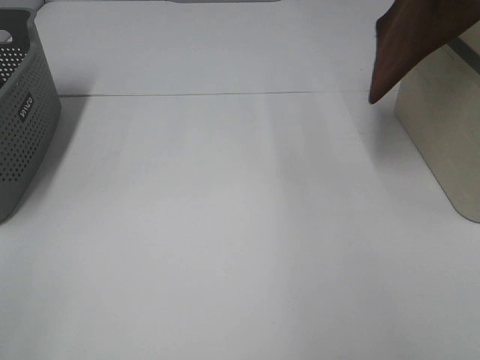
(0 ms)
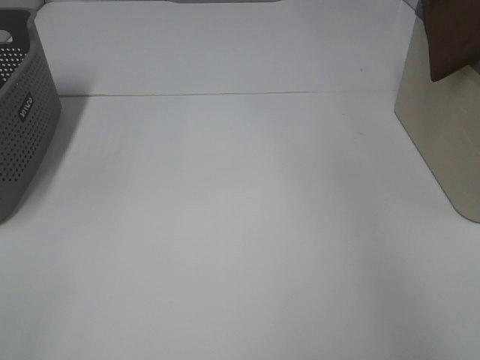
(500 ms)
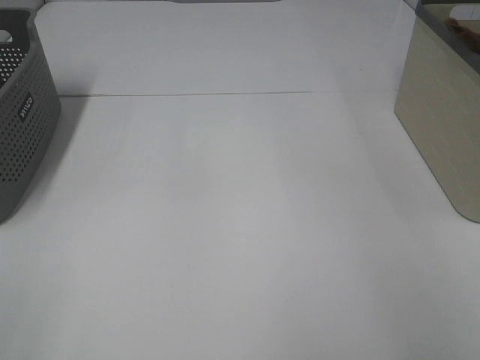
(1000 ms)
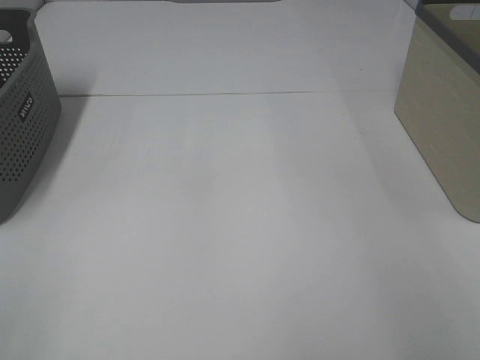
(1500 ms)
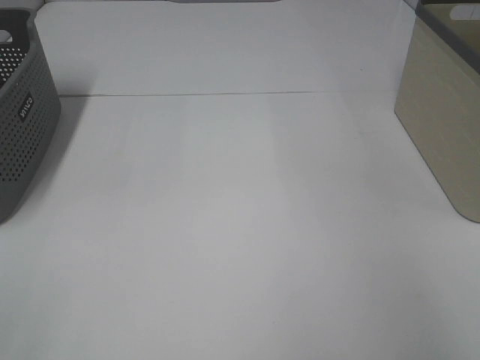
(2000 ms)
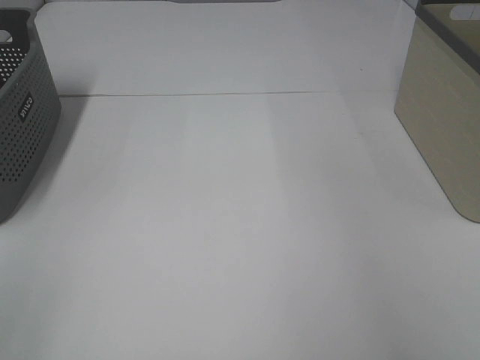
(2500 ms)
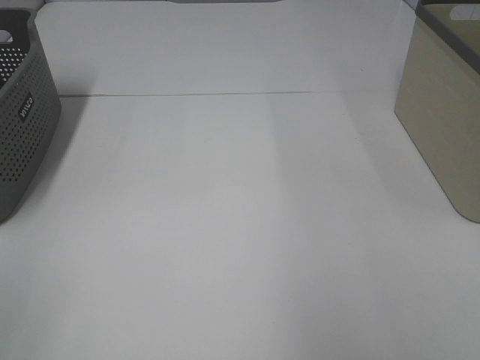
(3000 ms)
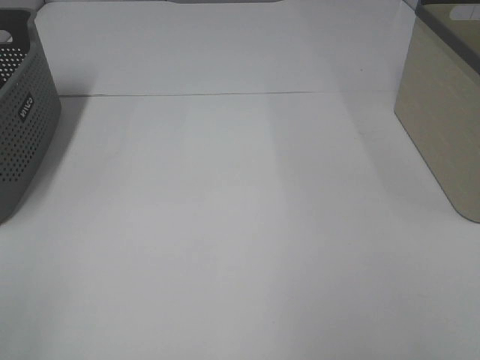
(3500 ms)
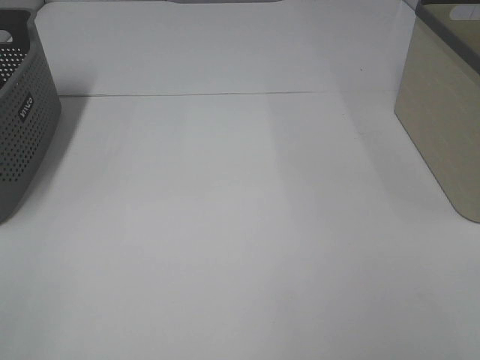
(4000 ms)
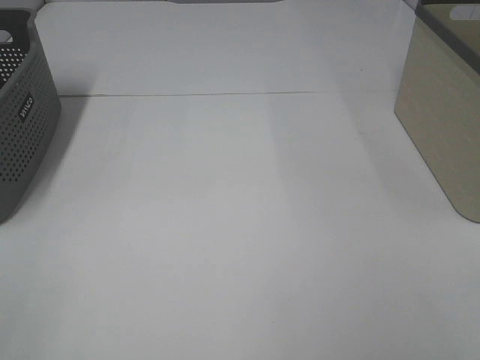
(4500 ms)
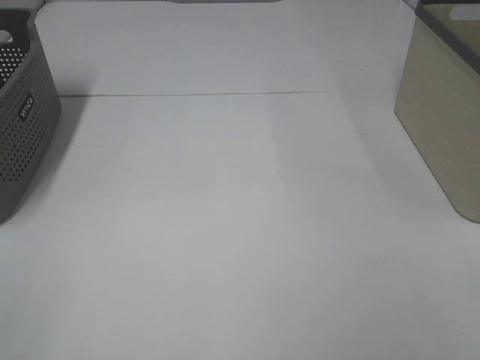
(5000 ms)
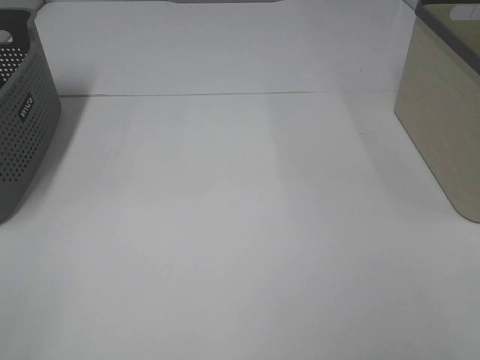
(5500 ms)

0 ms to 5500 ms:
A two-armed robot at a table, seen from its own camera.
Step, 0 ms to 1500 ms: Right hand: place the brown towel in right basket.
0 ms to 2000 ms: The right gripper is displaced to the right by roughly 15 cm, and opens.

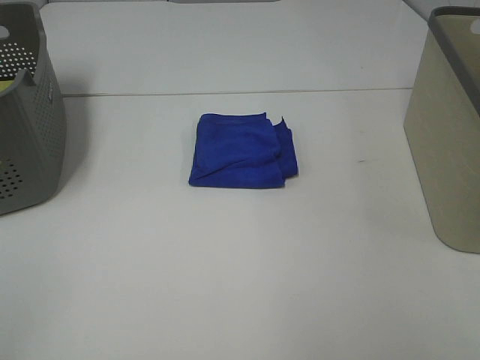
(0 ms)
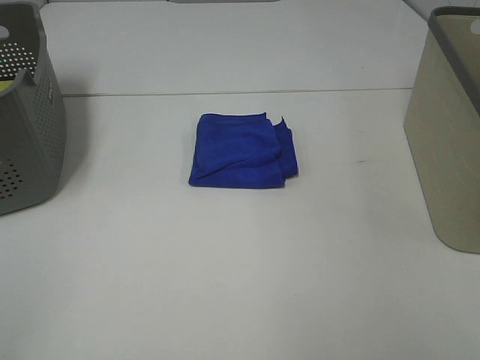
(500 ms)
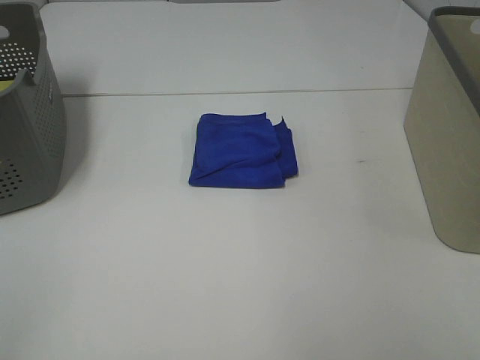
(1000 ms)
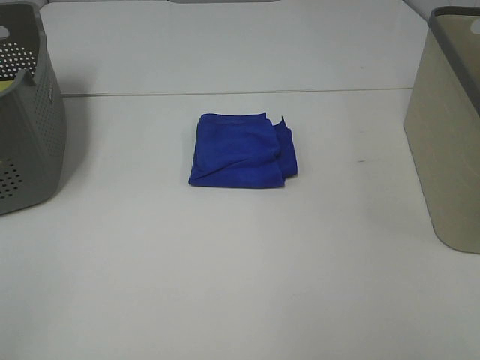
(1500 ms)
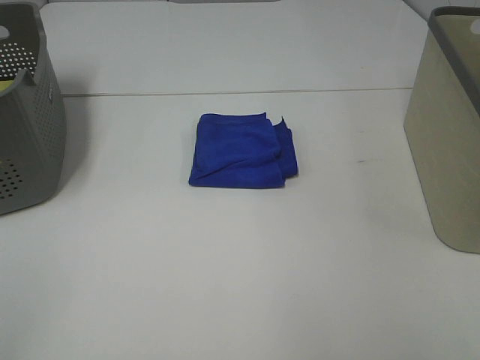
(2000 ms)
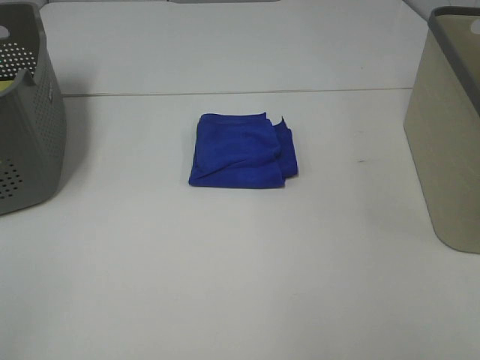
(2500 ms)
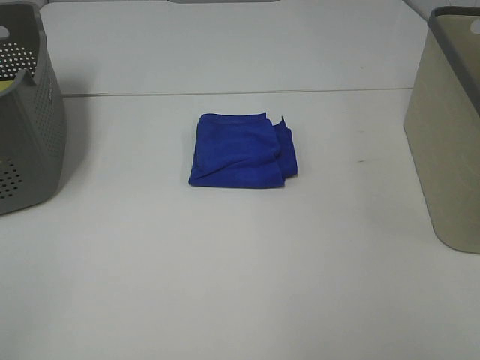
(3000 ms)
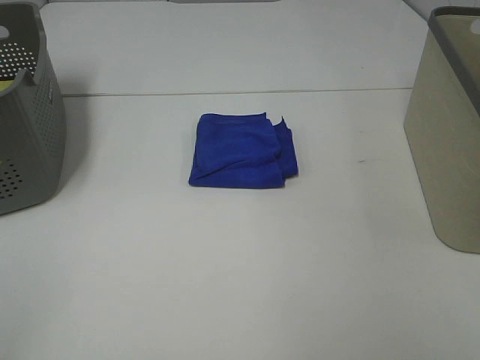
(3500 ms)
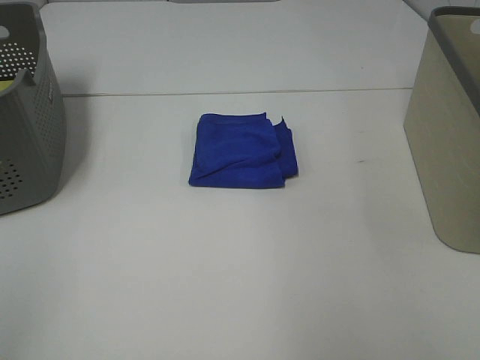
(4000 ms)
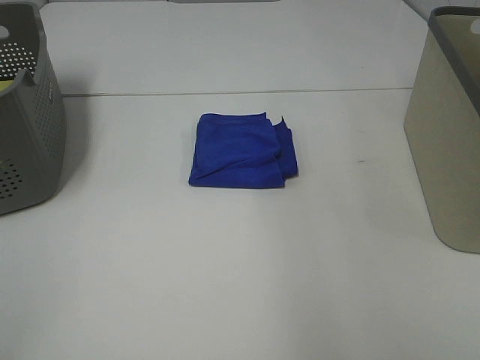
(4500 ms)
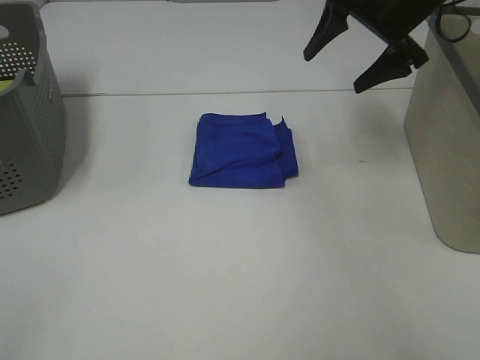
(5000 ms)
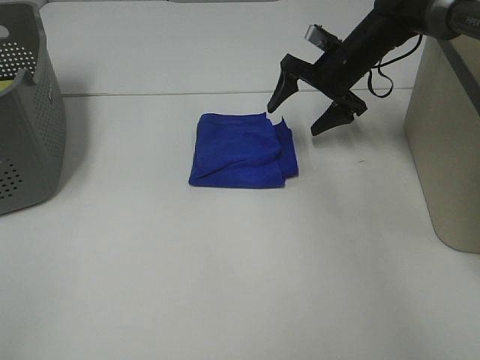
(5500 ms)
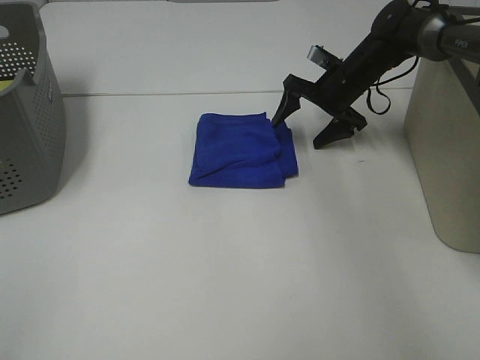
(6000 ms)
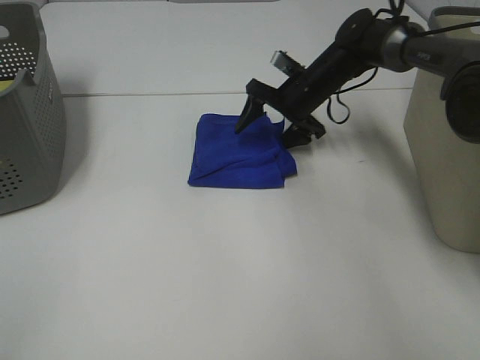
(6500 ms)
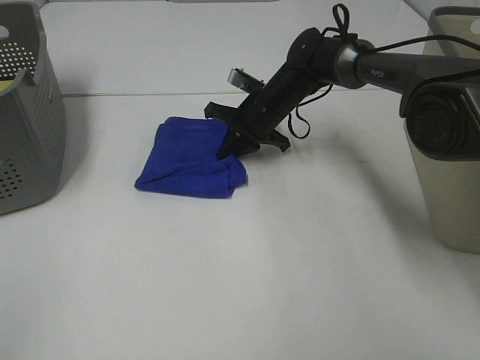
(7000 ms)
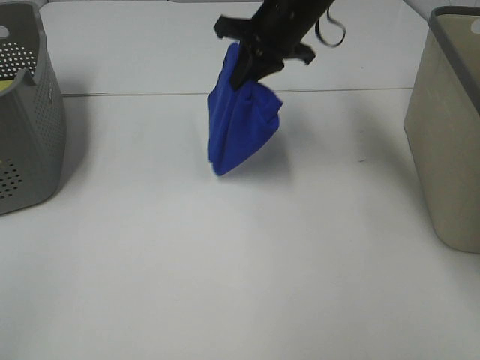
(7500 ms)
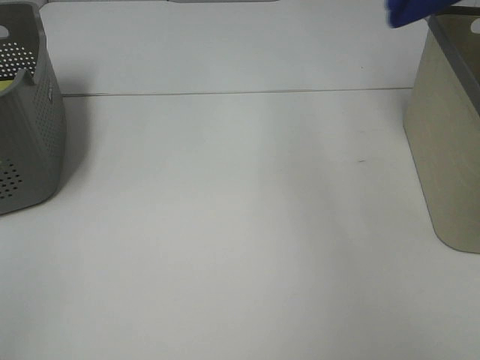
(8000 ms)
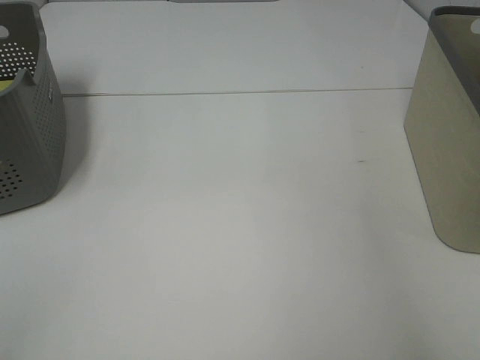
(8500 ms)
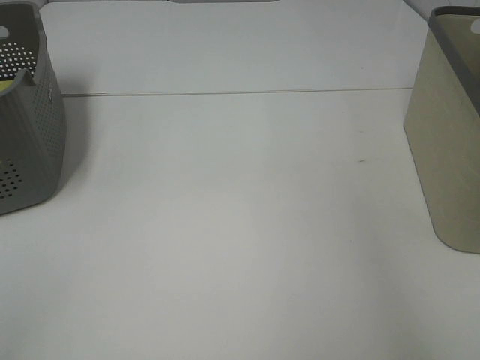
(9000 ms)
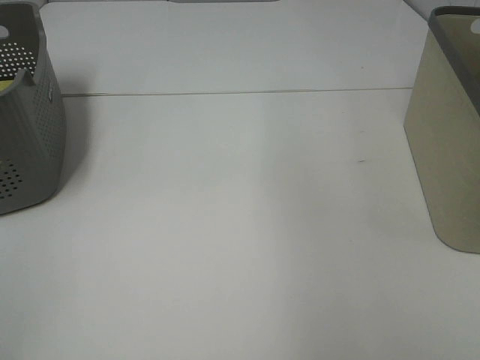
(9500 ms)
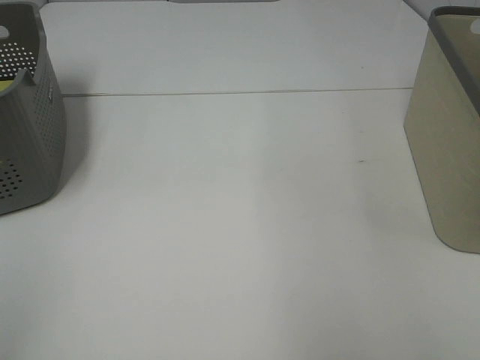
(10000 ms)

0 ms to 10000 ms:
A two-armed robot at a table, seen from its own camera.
Step, 0 ms to 6500 ms: Right hand: grab the folded blue towel.
Step, 7000 ms to 8500 ms: Right hand: place the blue towel in right basket.
0 ms to 2000 ms: The two grippers keep their place.
4000 ms to 6000 ms: The right gripper goes approximately 50 cm forward and downward.
6000 ms to 8000 ms: The right gripper heads upward, covering roughly 35 cm, and closes its fingers.
8000 ms to 10000 ms: The right gripper is displaced backward by approximately 30 cm, and opens.

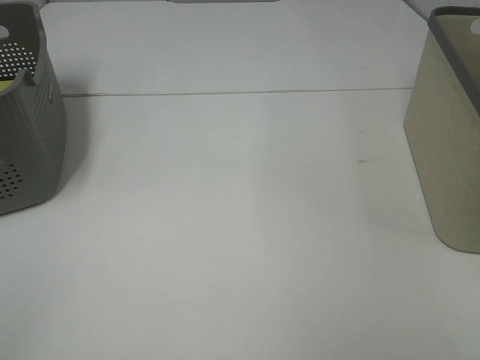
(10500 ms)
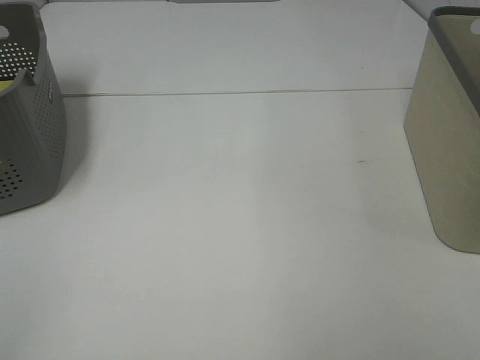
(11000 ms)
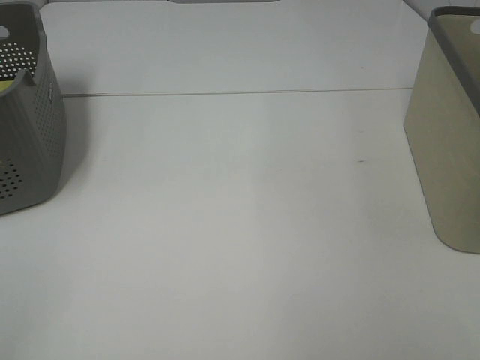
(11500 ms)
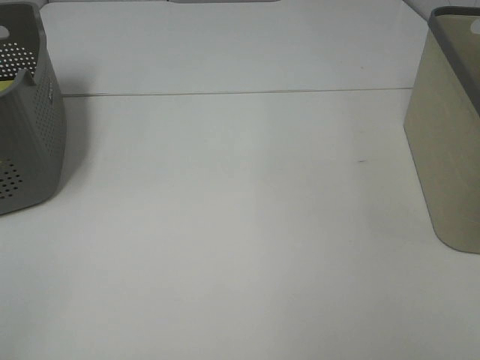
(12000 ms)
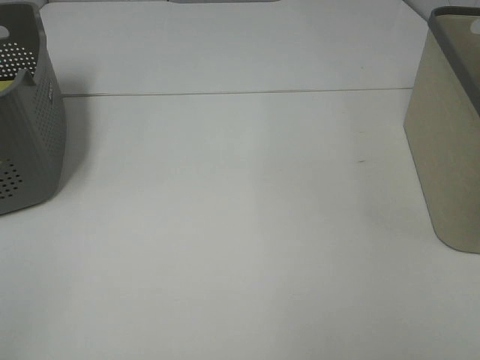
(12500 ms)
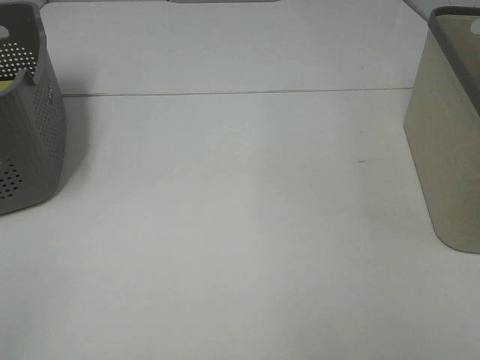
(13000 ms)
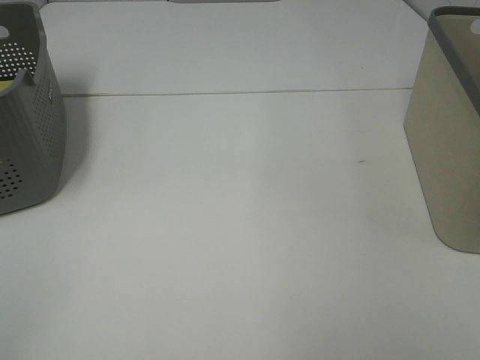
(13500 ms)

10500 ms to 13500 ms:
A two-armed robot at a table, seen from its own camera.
12000 ms to 13500 ms: Both grippers stay about where they are.

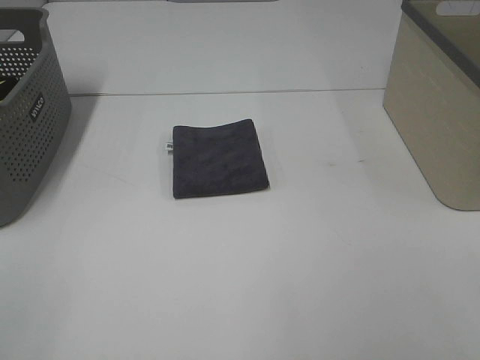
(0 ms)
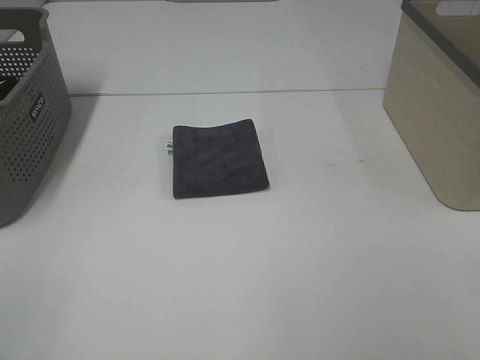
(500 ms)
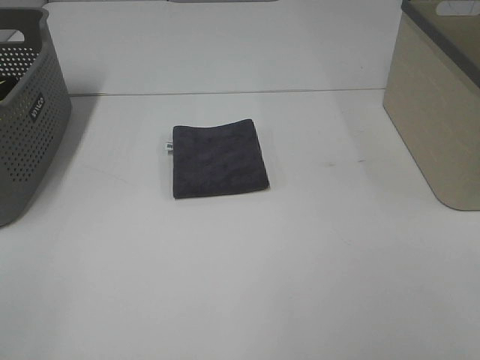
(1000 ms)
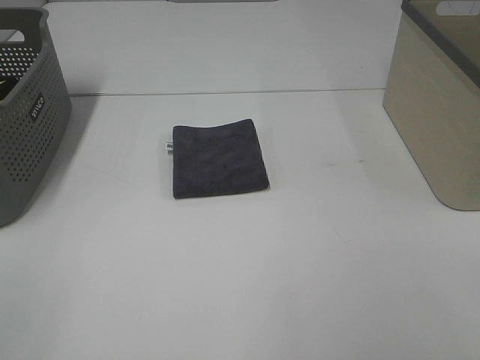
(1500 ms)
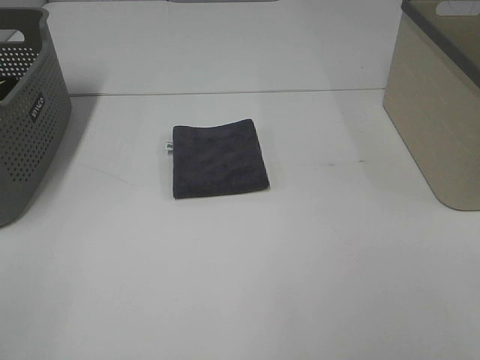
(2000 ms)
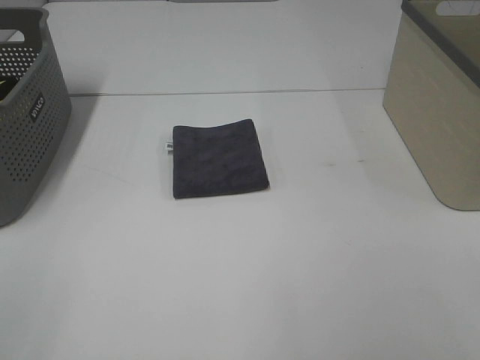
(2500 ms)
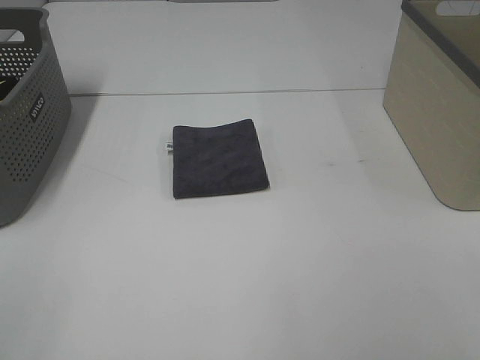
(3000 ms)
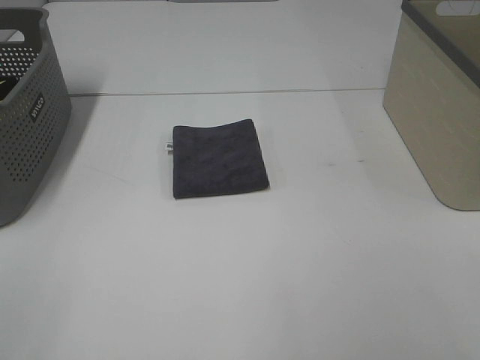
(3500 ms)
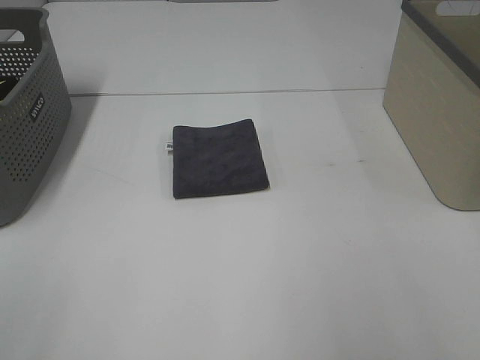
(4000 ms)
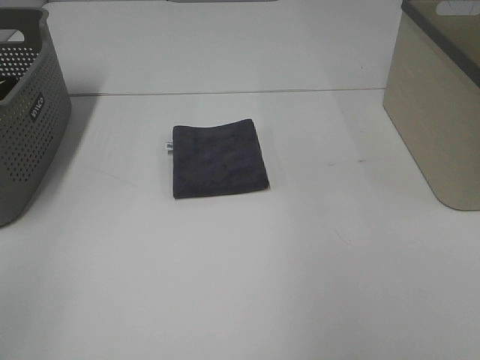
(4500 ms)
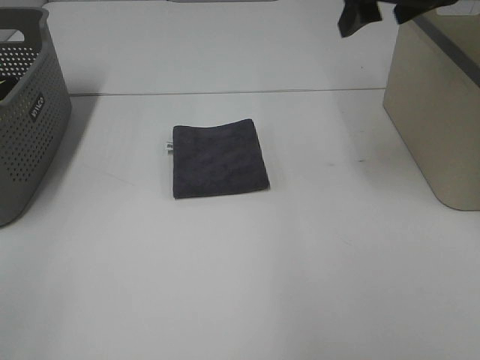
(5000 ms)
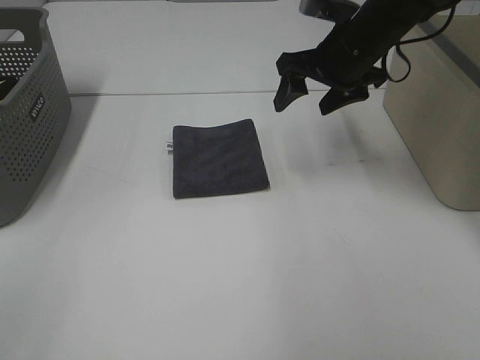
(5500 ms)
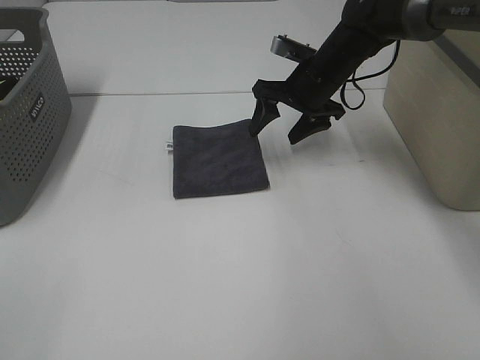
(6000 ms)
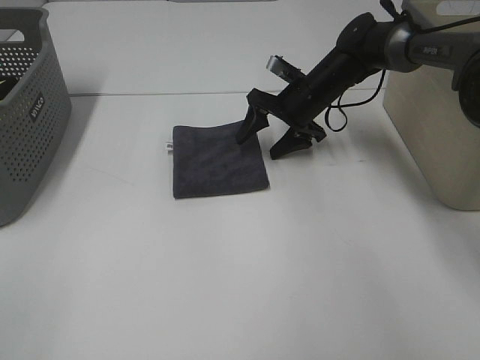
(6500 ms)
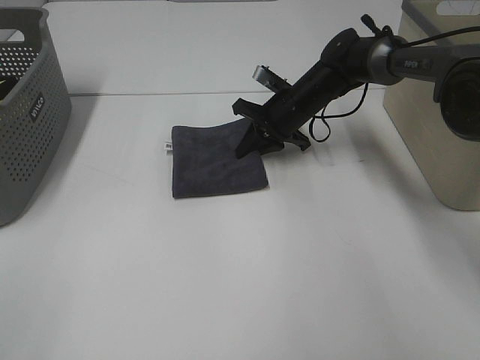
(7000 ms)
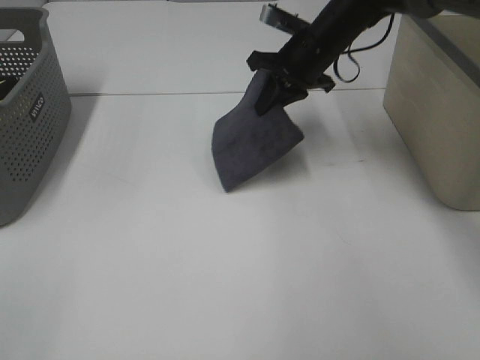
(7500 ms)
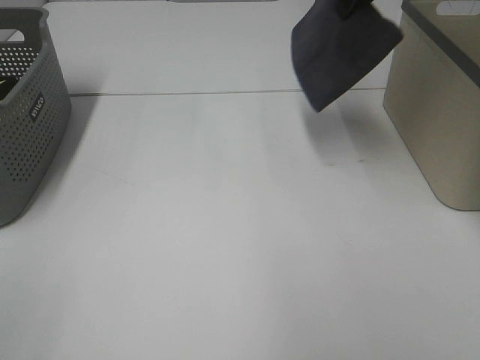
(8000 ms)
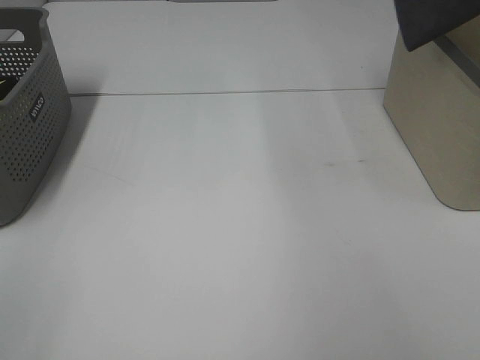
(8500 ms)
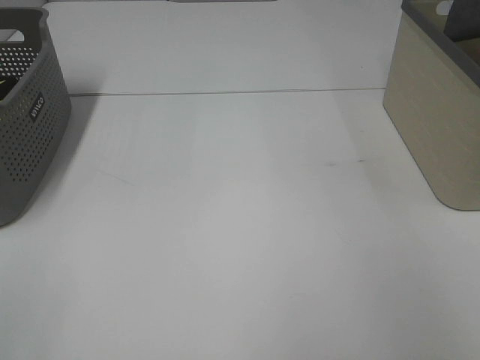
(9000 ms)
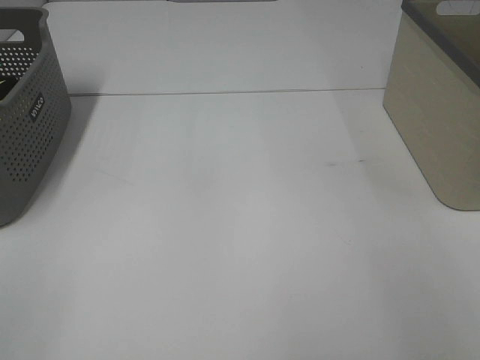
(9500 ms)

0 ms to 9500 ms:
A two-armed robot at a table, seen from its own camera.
Step, 0 ms to 7000 ms: Right hand: grab the folded grey towel.
0 ms to 2000 ms: The two grippers keep their place.
4000 ms to 5500 ms: The right gripper is displaced forward, downward and to the left by some 40 cm.
5500 ms to 7500 ms: The right gripper travels forward by roughly 5 cm, moves approximately 10 cm downward and comes back, and closes up.
7500 ms to 9500 ms: The right gripper goes approximately 30 cm to the right, and opens its fingers.
